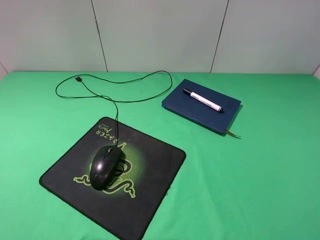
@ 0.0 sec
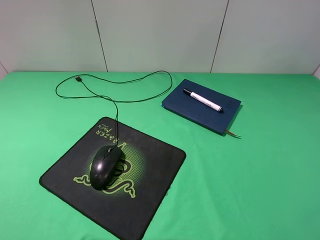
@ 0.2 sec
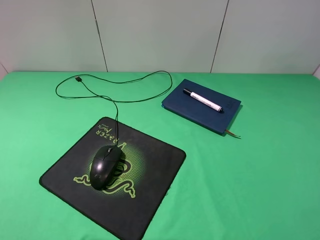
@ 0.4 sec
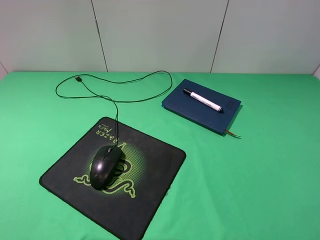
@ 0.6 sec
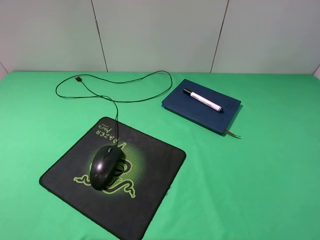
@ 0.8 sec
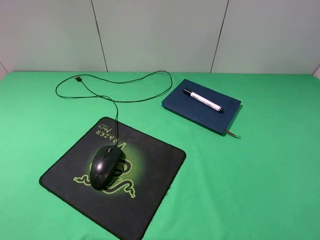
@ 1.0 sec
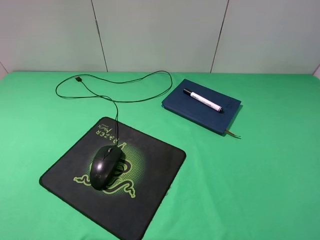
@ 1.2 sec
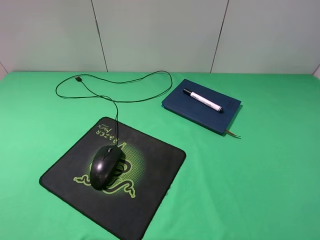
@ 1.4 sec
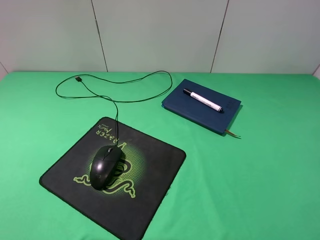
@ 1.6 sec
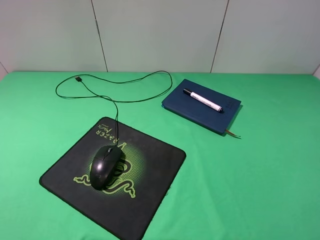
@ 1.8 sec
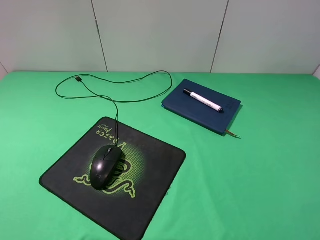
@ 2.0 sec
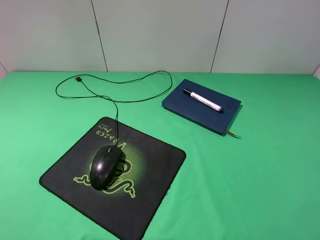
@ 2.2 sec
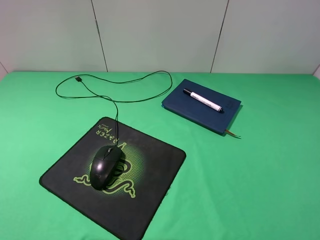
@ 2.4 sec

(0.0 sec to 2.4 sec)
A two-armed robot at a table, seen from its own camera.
1.2 sec - 2.4 sec: Neither gripper changes place.
